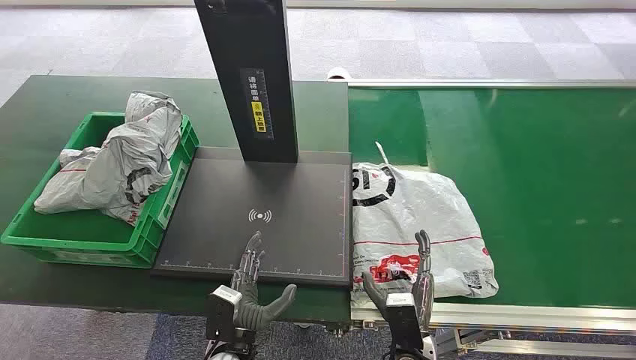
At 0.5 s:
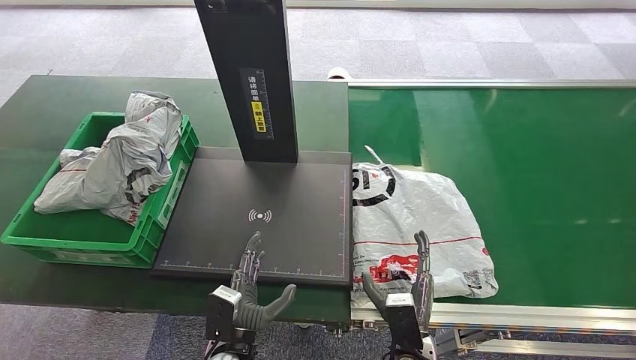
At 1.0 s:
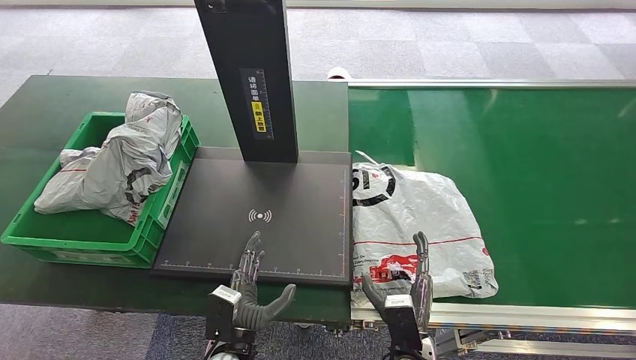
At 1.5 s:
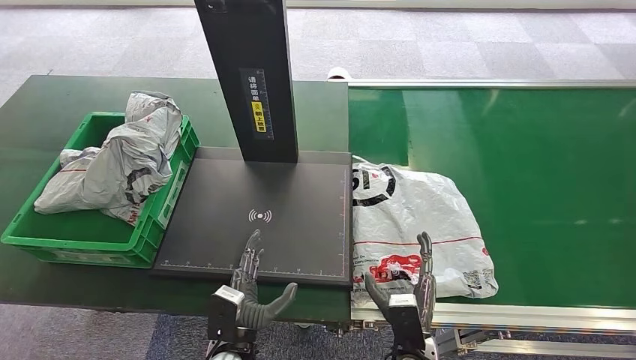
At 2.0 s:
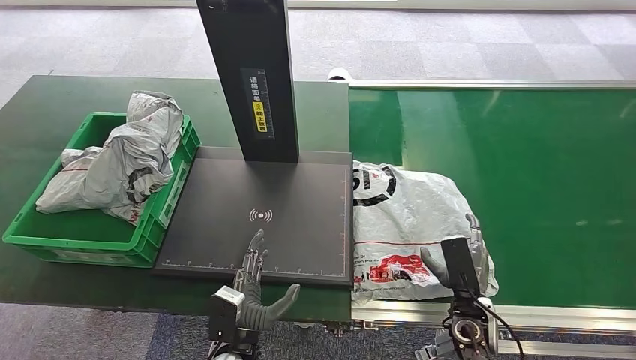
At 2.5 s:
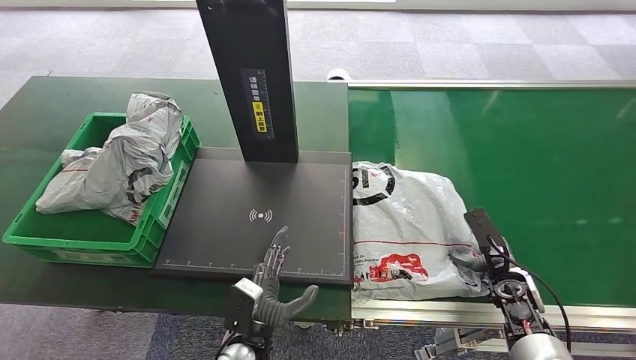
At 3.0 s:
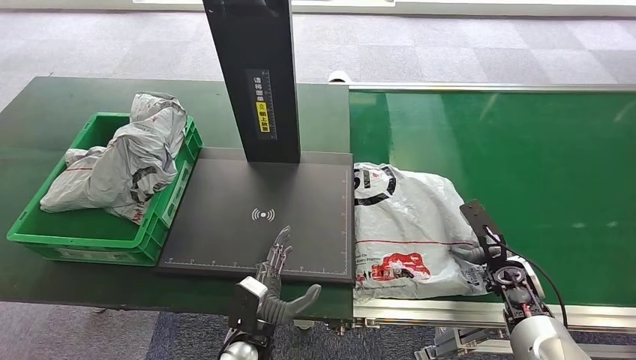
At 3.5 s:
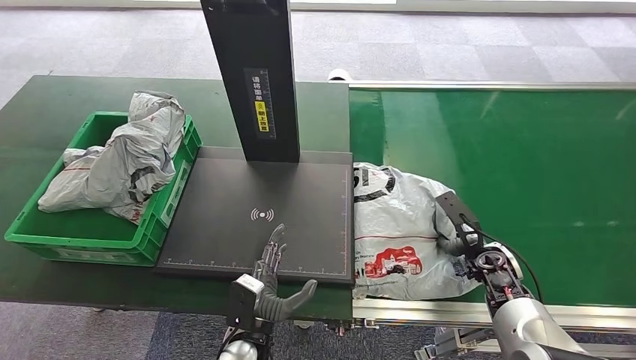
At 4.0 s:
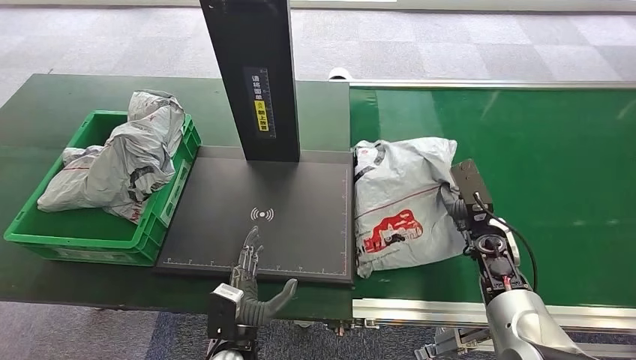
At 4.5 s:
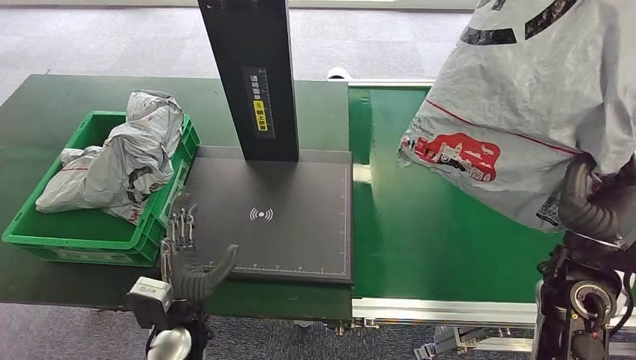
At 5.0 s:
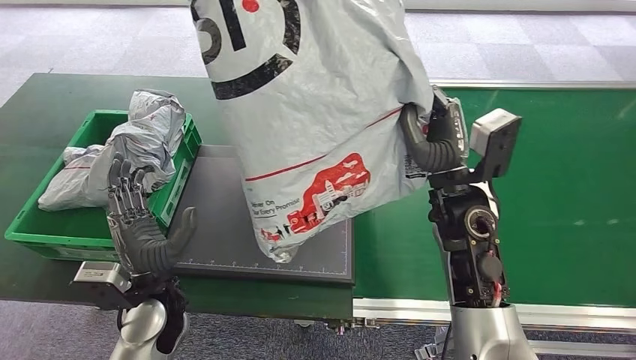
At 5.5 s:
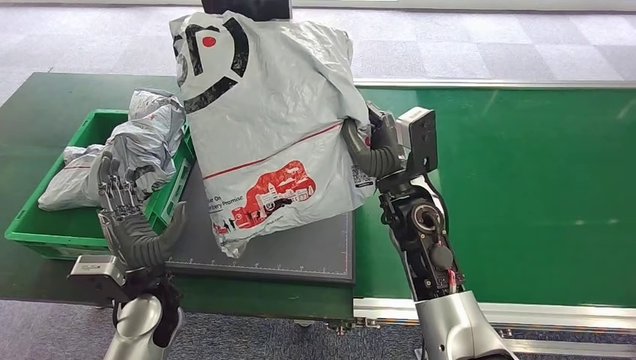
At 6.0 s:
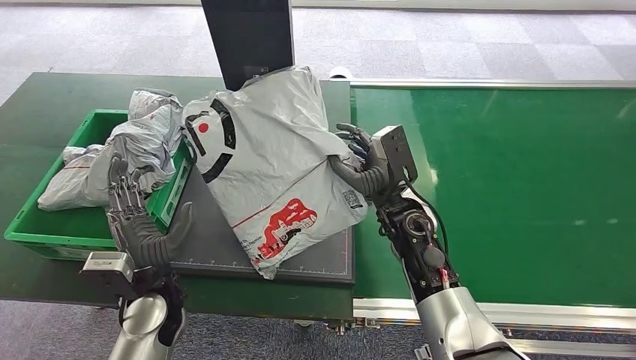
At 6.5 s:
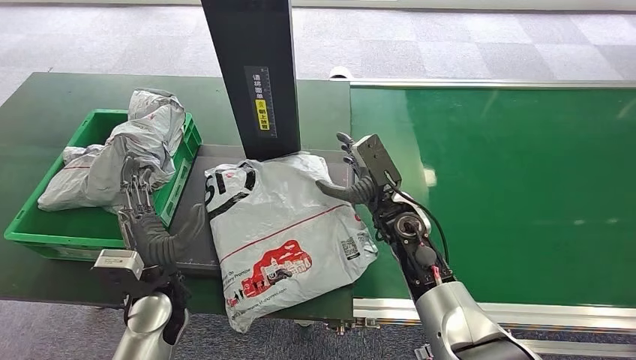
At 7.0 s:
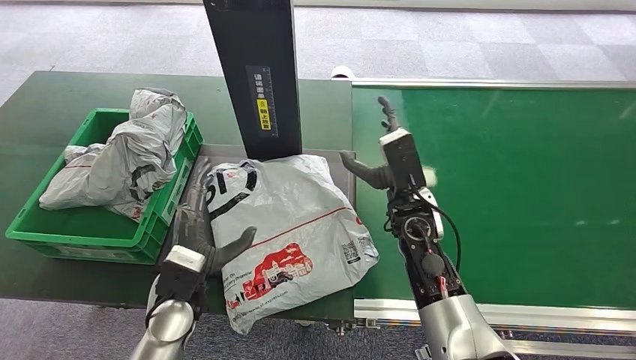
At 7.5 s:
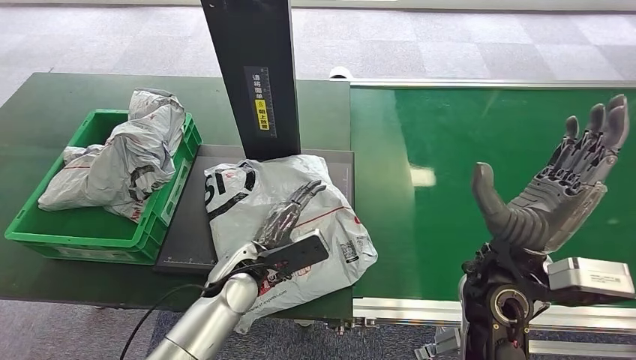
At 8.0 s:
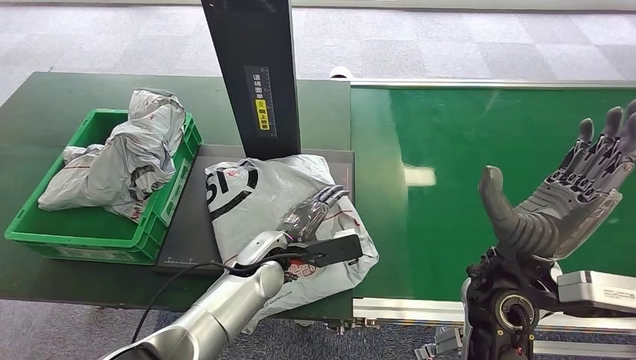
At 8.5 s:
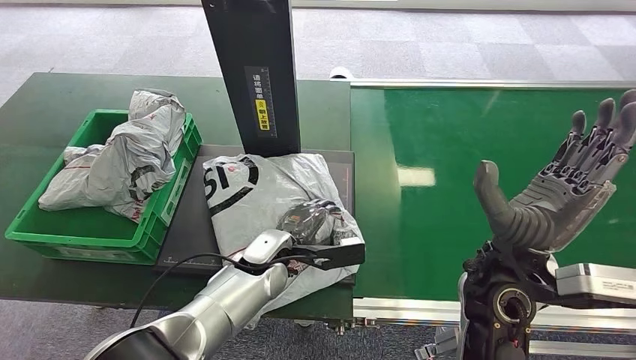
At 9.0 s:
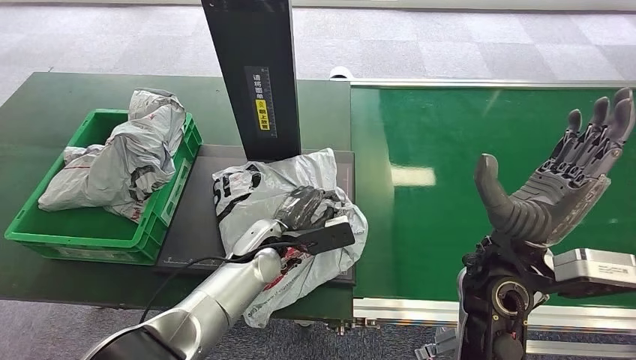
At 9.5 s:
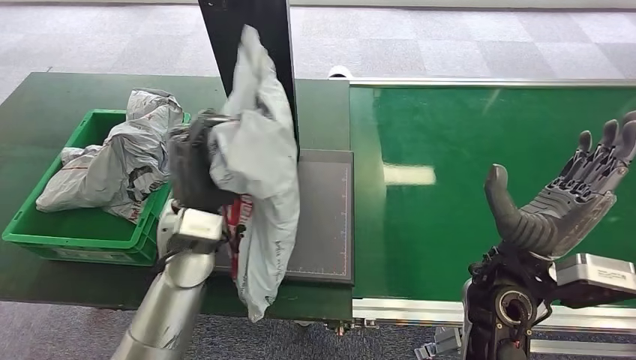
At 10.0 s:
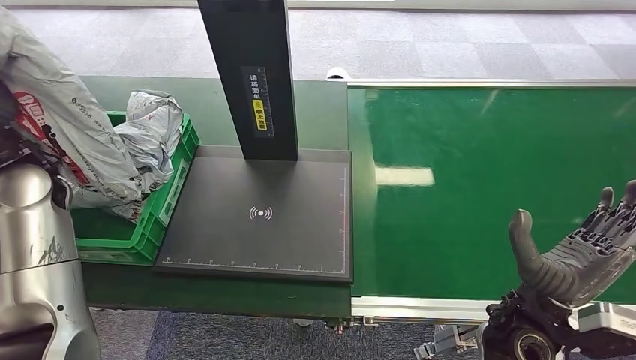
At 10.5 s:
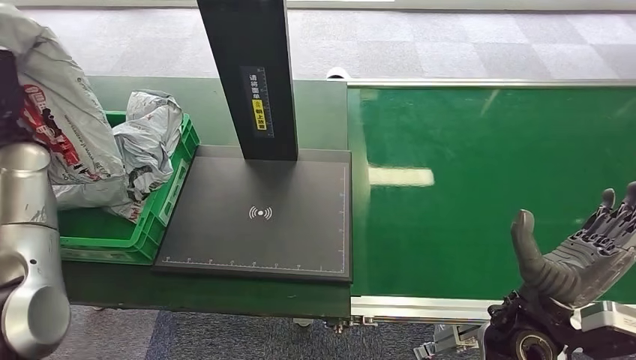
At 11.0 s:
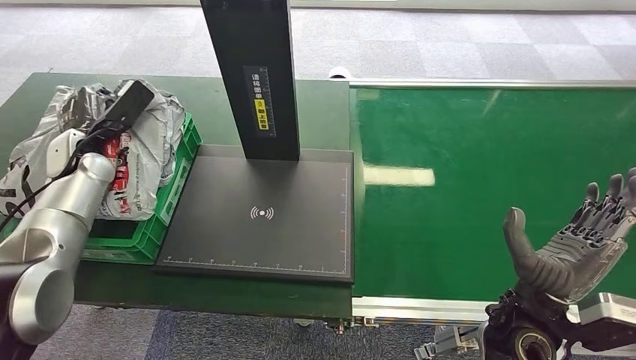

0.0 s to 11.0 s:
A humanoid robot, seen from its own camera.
Step, 0.0 to 4.5 s: Pick up the package from the conveyor belt.
Step, 5.0 to 7.0 s: Place the package onto the inbound machine.
Step, 7.5 to 9.5 s: Pick up the package from the inbound machine.
2.0 to 3.5 s: The right hand heads forward and to the right, covering some 15 cm.
7.5 to 9.0 s: The left hand changes place by some 5 cm.

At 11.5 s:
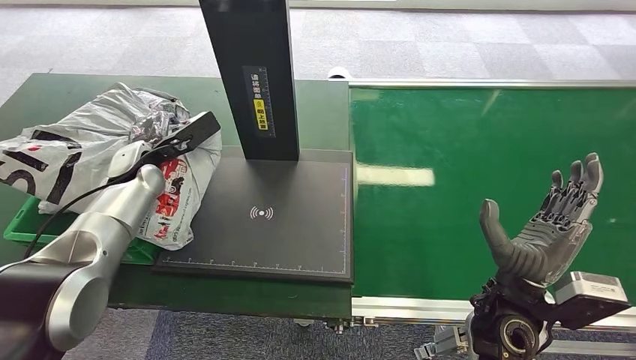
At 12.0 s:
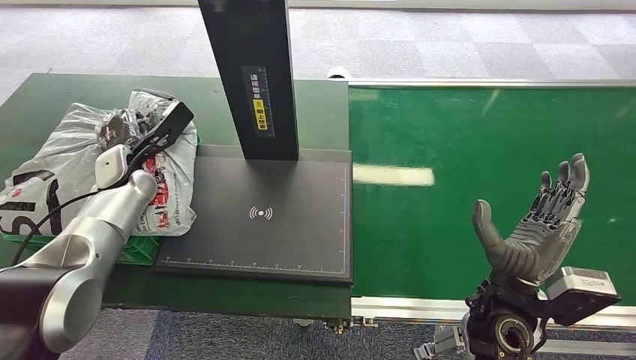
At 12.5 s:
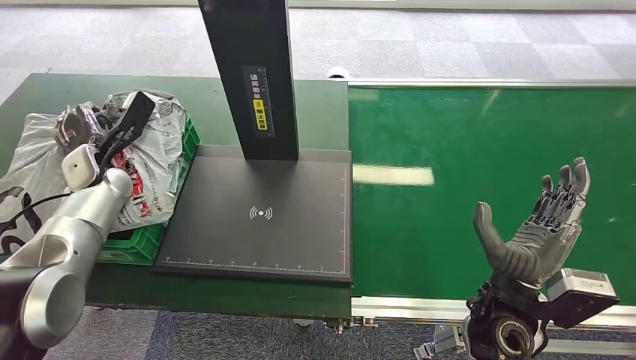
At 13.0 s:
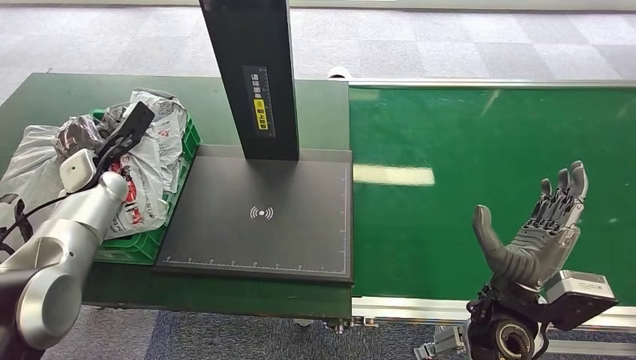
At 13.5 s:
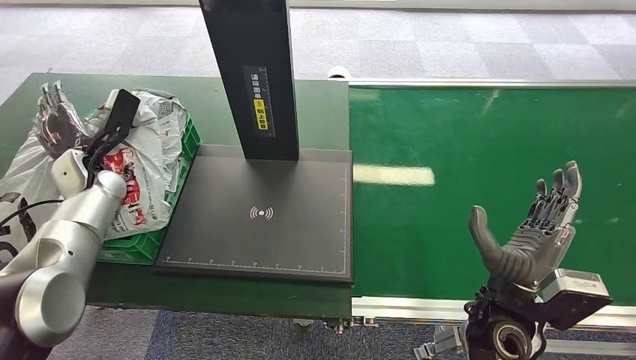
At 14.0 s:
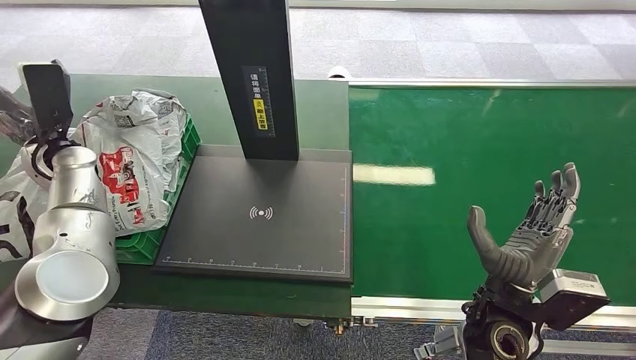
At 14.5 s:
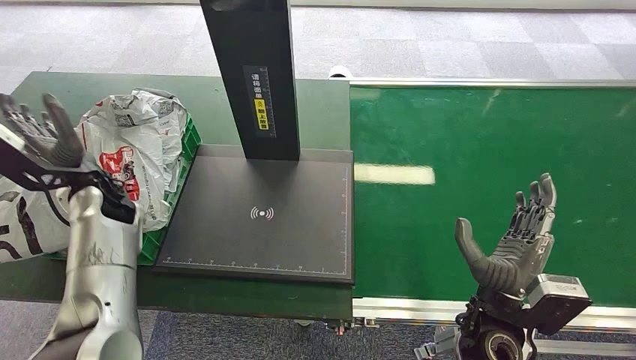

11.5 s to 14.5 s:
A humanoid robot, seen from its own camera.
Step, 11.5 to 14.5 s: Place the package into the parcel locker.
11.5 to 13.0 s: The left hand shifts some 5 cm to the left.
